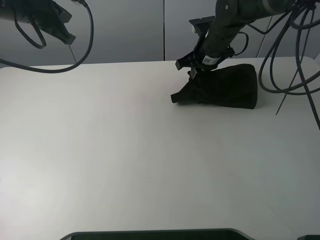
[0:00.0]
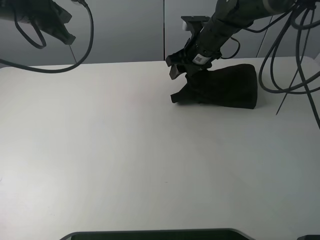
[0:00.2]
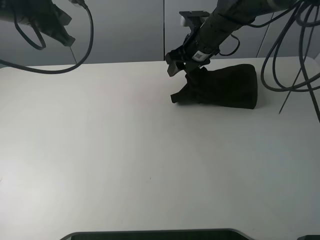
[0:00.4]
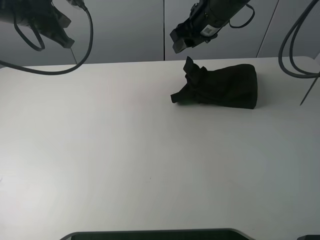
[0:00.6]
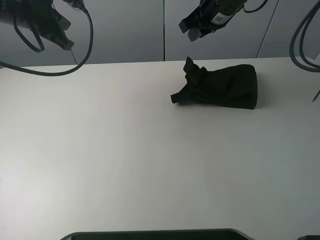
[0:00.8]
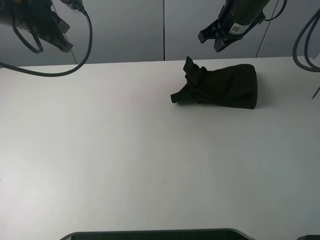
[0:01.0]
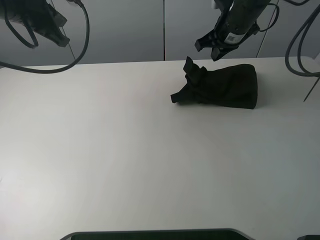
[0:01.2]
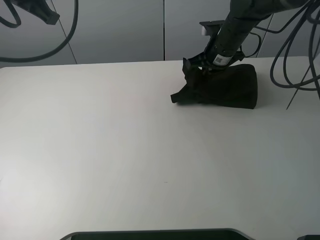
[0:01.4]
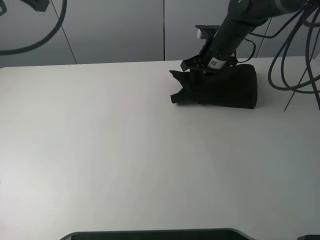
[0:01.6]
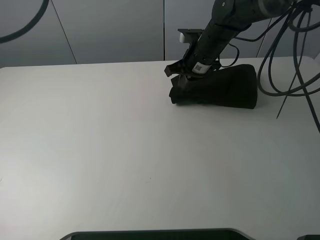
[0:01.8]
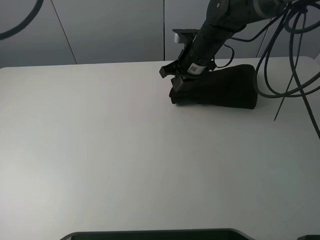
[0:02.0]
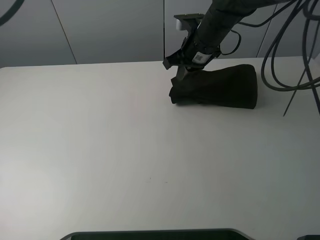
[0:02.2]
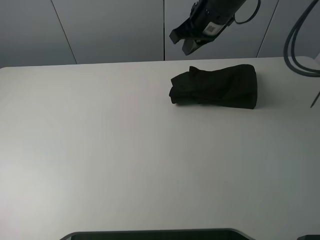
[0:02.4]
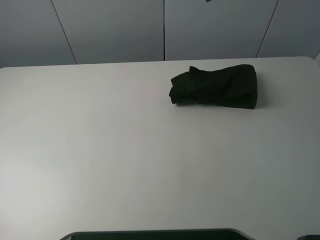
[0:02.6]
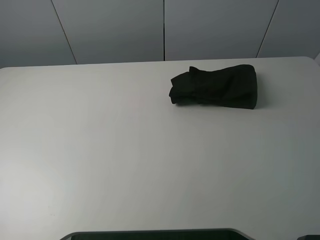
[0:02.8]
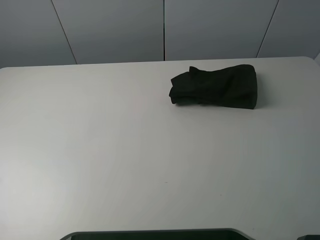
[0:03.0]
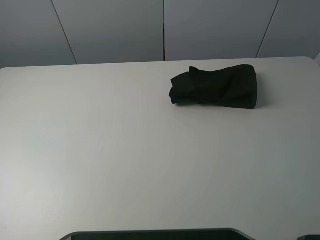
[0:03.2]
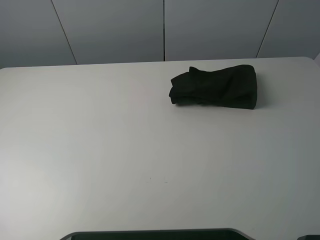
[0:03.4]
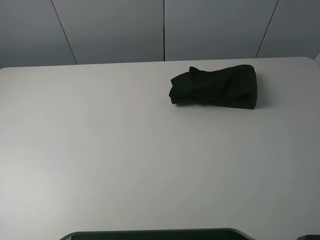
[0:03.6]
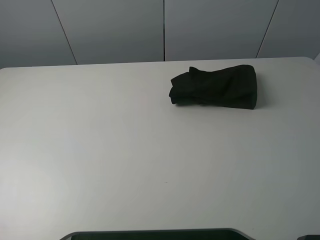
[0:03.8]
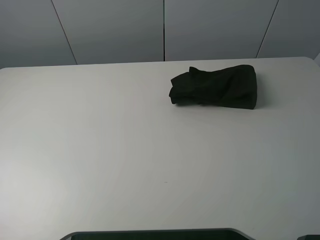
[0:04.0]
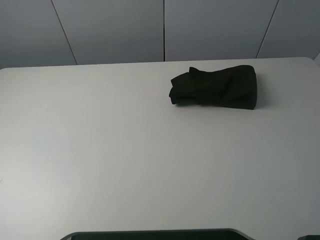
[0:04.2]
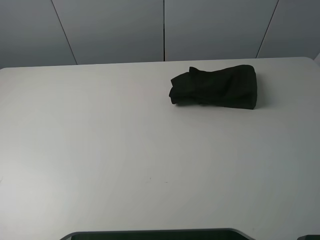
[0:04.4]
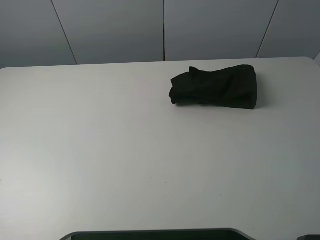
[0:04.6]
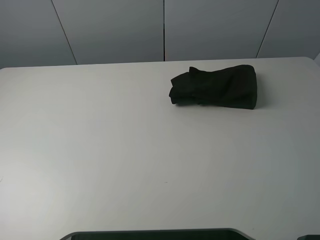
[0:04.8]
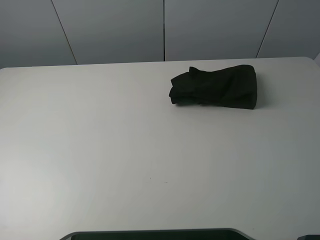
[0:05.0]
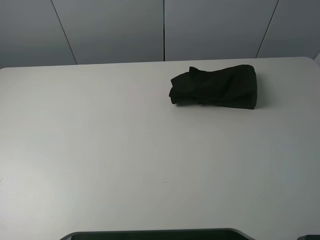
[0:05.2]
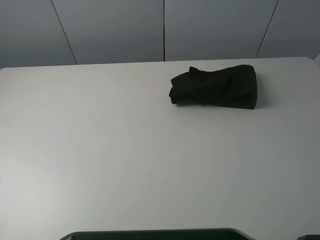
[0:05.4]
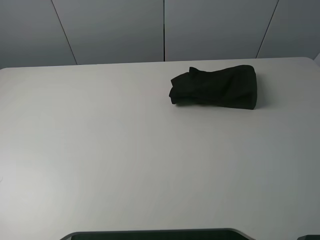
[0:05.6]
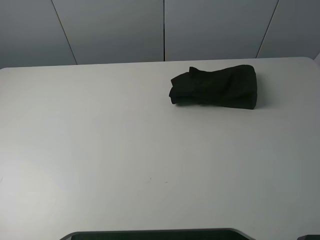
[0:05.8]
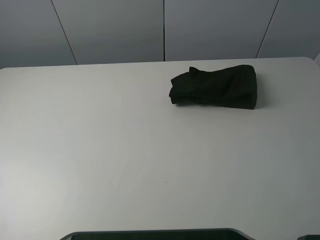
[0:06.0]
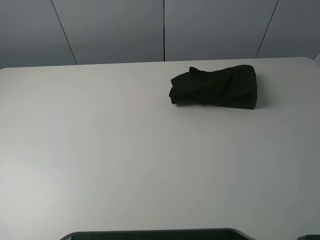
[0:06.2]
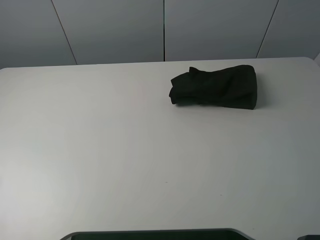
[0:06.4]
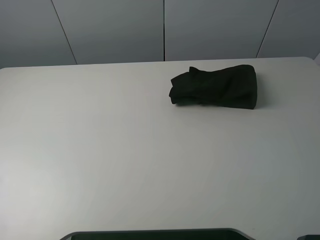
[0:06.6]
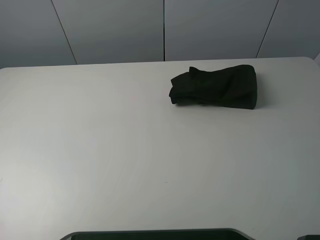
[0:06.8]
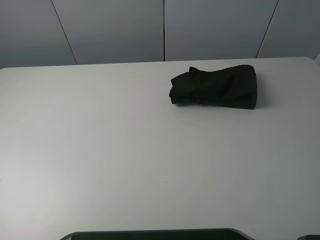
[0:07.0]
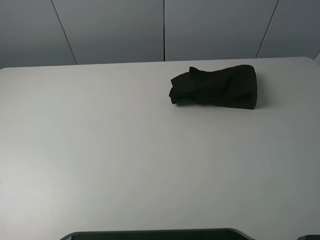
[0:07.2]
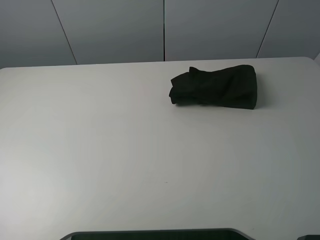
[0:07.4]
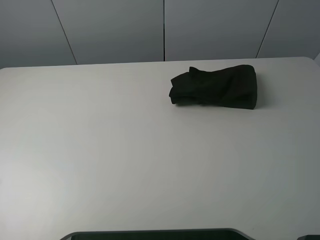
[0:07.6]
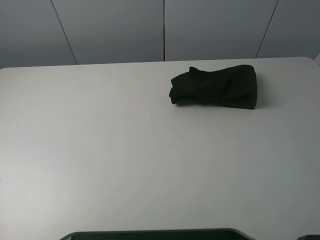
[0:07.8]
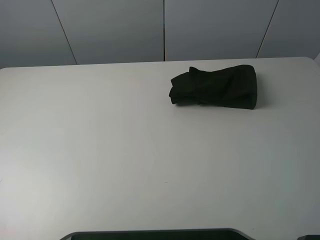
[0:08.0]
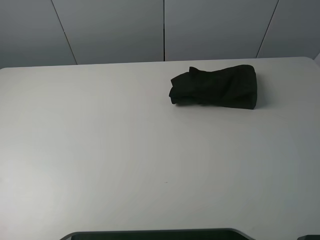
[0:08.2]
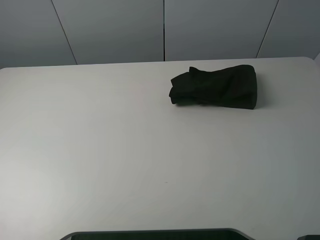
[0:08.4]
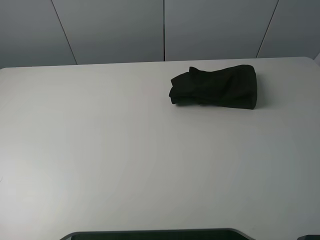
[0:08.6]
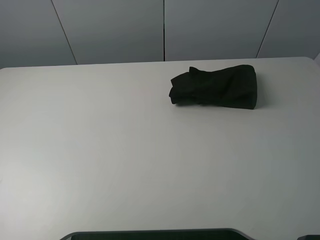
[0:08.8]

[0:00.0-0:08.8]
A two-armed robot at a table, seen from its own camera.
Task of the whole recording: fold the clothes on the table.
Step, 0:00.0 to 0:02.0: Fold the black T-shirt from right to left with right gripper.
0:00.0 to 0:01.4: The left gripper travels upward by roughly 5 cm. The right gripper goes upward and returns, roughly 10 cm each way, and opens, then closes again.
0:01.4 to 0:03.0: The left gripper goes roughly 25 cm backward and upward, and opens its fingers; the right gripper goes approximately 40 cm upward and backward, and opens its fingers.
0:07.4 to 0:08.8: Neither gripper changes place.
